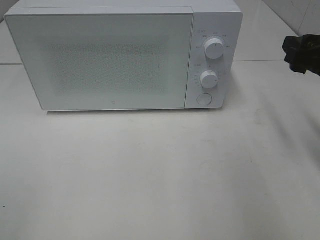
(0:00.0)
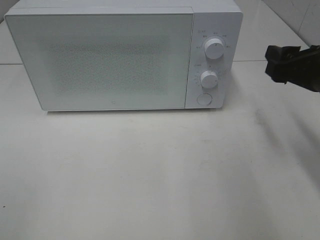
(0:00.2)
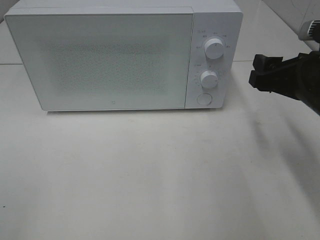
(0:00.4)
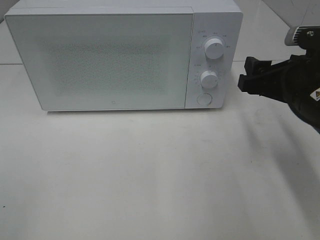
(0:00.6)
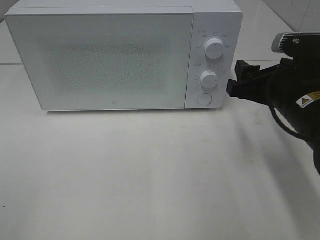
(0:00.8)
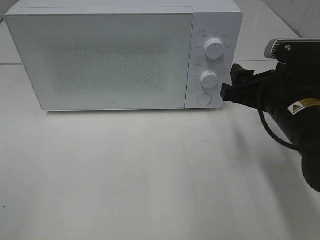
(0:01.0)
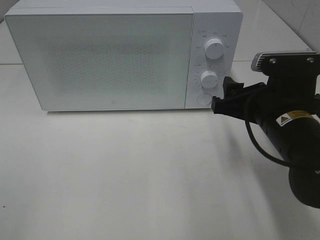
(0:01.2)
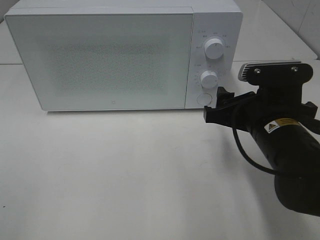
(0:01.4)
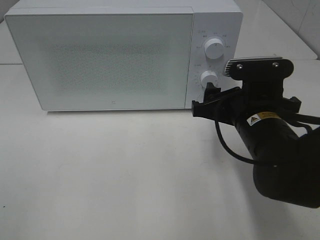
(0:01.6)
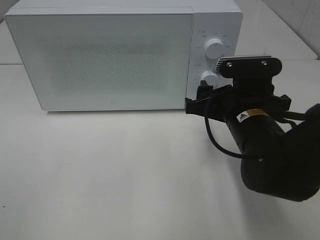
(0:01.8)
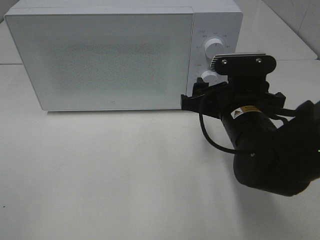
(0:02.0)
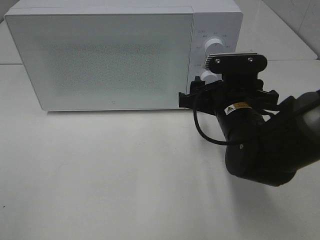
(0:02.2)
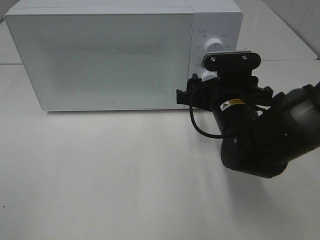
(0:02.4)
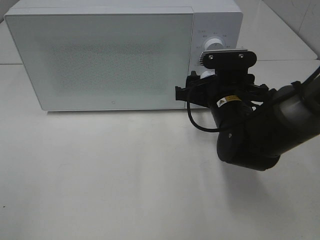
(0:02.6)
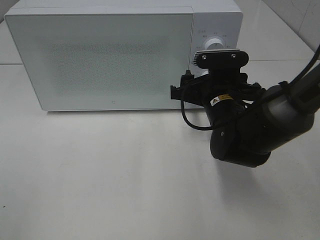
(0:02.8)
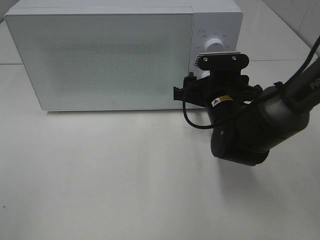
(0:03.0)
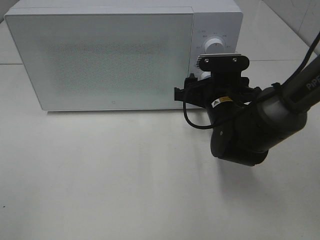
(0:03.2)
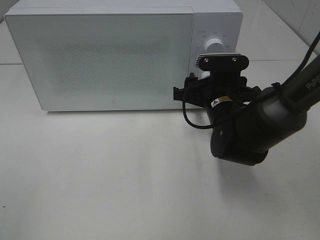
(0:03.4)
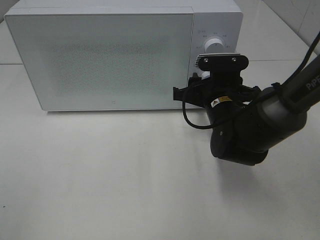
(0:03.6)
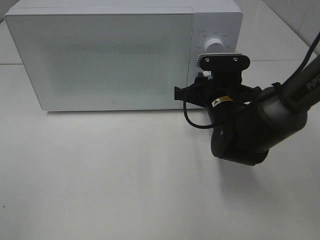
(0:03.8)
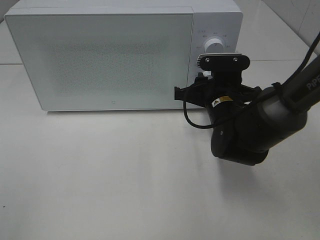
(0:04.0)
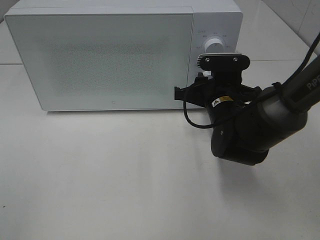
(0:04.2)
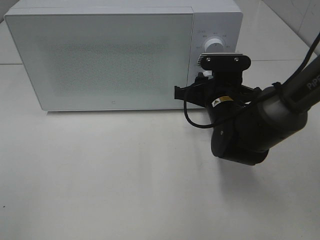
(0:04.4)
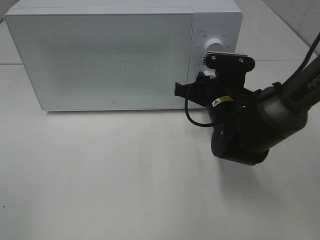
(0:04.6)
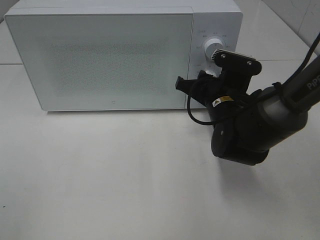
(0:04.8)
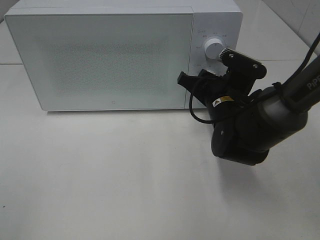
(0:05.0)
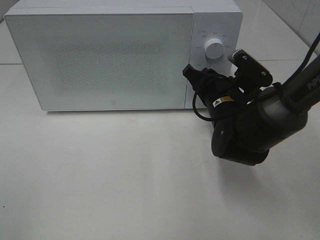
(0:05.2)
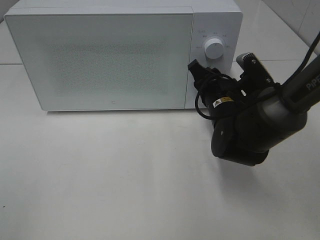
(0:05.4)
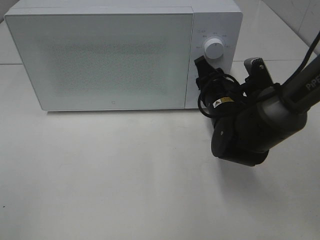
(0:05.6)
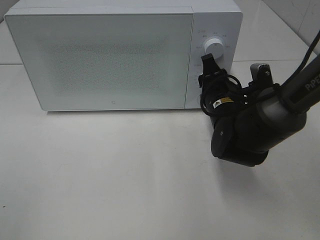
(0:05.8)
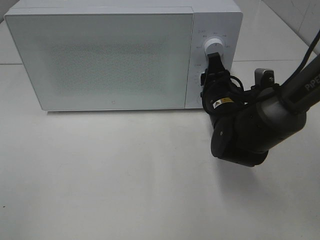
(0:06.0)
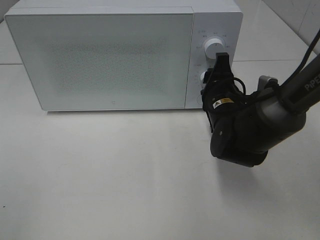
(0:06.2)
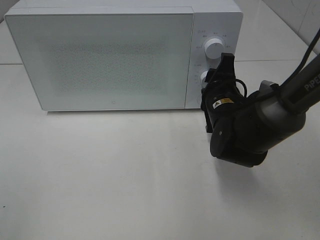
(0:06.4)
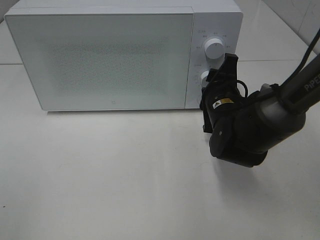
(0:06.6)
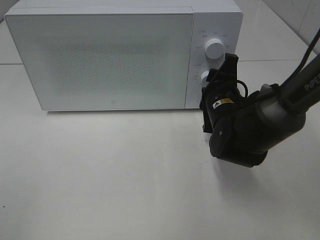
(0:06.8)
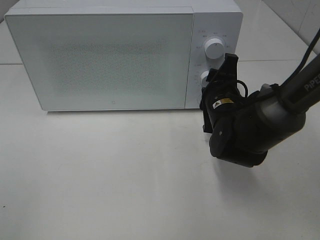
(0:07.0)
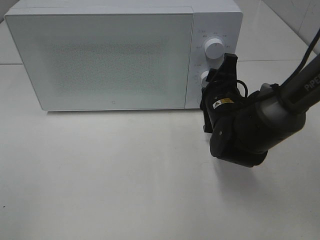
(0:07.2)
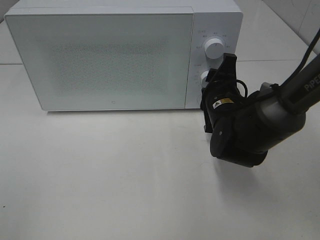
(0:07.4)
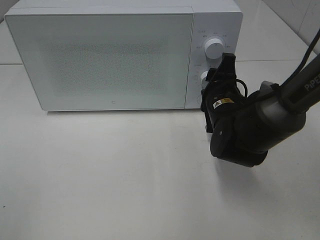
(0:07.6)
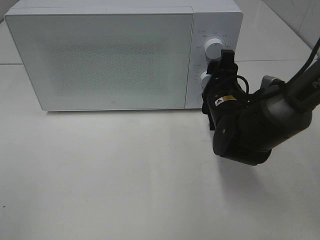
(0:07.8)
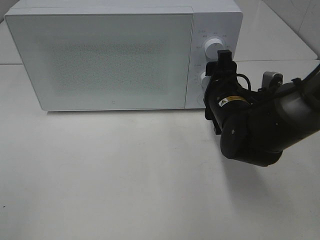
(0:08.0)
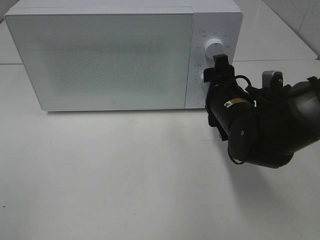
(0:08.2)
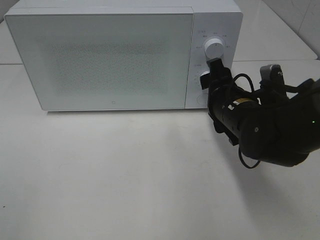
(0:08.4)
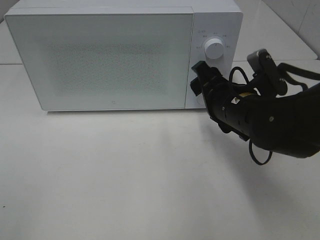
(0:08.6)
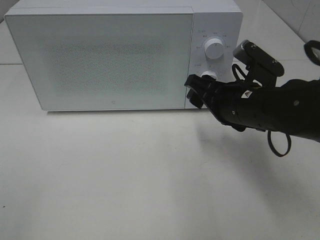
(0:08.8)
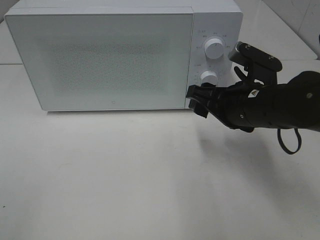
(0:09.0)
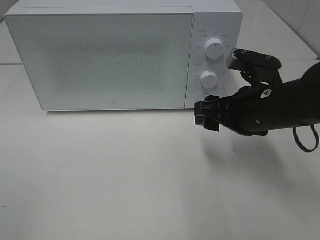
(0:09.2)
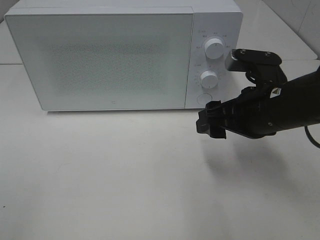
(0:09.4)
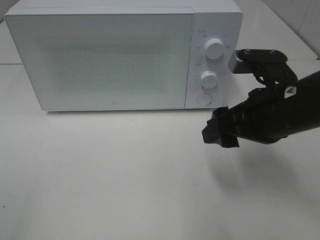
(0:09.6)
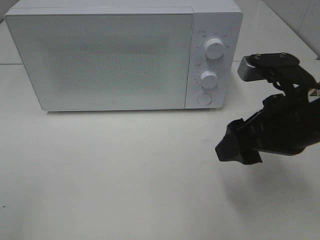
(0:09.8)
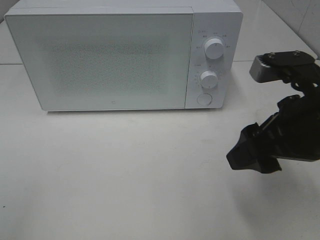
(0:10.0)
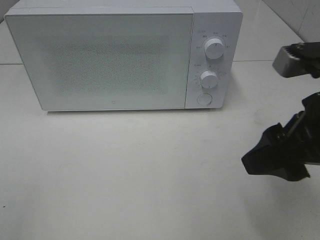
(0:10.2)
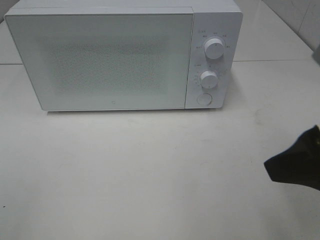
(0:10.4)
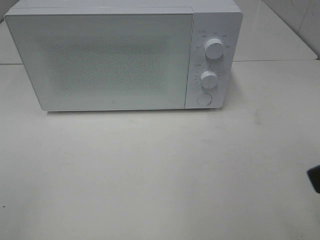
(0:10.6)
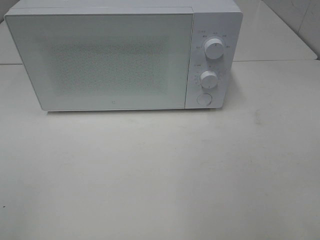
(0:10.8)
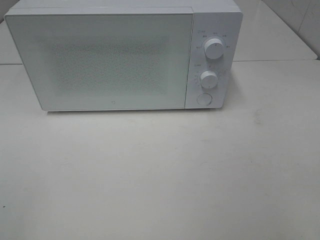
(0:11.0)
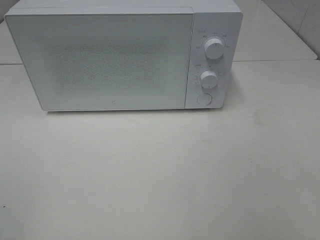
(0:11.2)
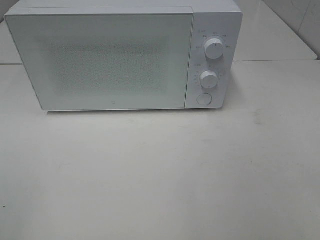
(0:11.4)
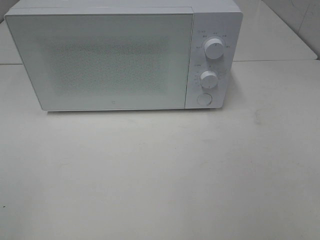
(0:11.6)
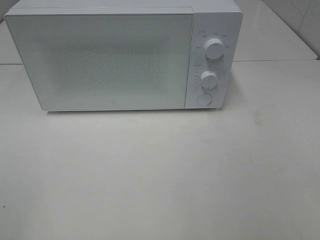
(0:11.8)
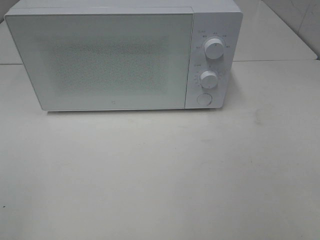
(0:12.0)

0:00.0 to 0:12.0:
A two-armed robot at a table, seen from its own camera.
Task of the whole recording: Heat the burger.
Step, 0:00.0 to 0:08.0: Right hand: twist timer button.
0:00.0 to 0:01.6: The right gripper is displaced to the left and downward by roughly 15 cm.
0:01.6 to 0:03.0: The right gripper moves forward, roughly 10 cm.
0:03.0 to 0:04.4: The right gripper closes.
0:07.6 to 0:09.0: The right gripper moves upward and backward, roughly 10 cm.
0:09.0 to 0:10.4: The right gripper travels backward, upward and to the right by approximately 20 cm.
0:10.4 to 0:12.0: The right gripper goes about 15 cm backward and to the right.

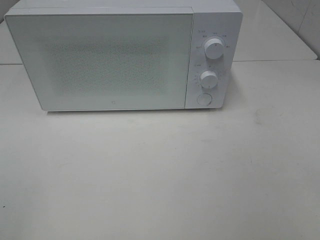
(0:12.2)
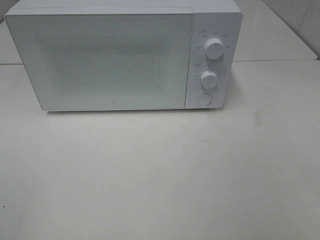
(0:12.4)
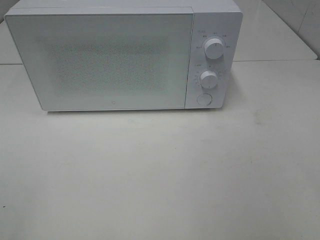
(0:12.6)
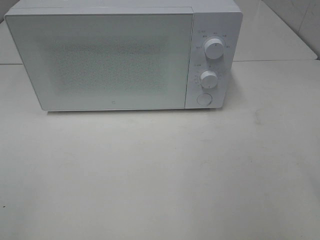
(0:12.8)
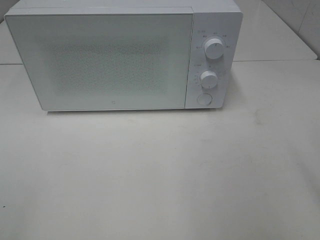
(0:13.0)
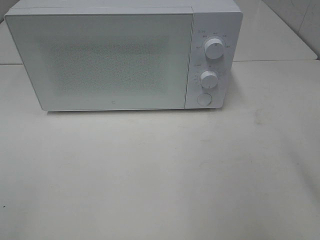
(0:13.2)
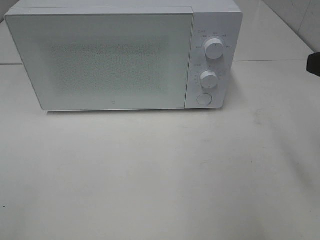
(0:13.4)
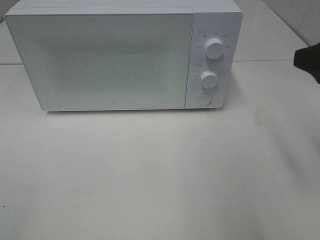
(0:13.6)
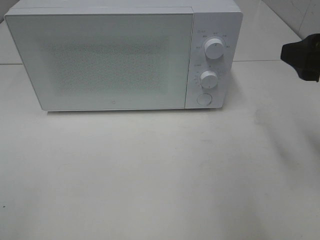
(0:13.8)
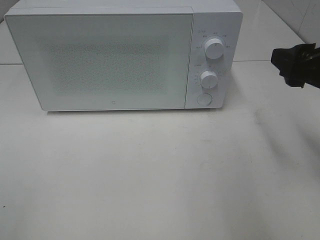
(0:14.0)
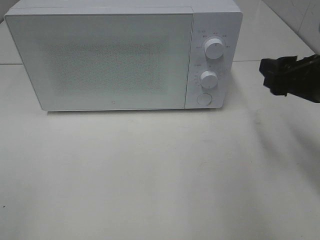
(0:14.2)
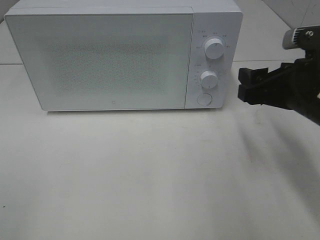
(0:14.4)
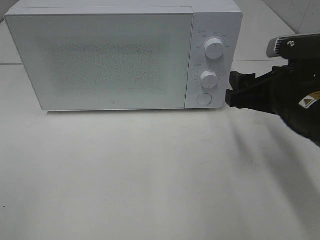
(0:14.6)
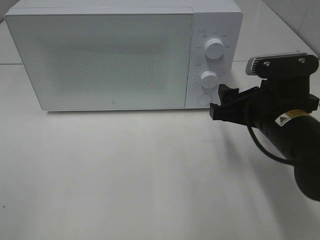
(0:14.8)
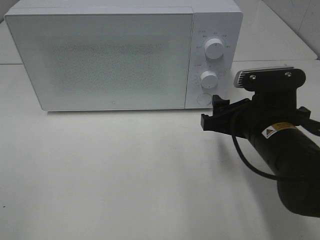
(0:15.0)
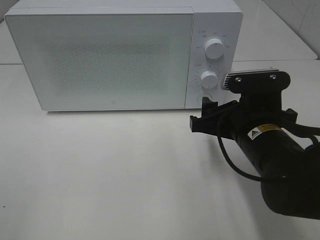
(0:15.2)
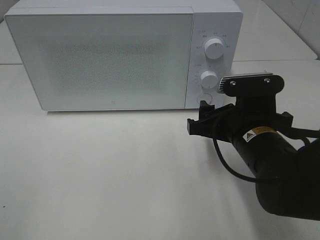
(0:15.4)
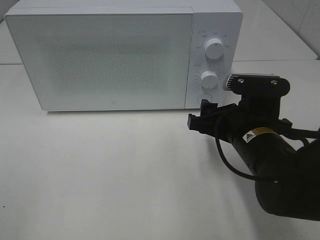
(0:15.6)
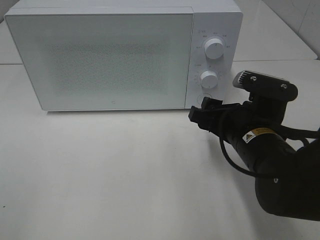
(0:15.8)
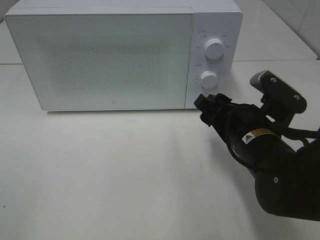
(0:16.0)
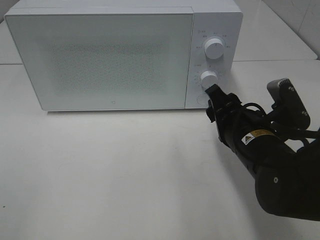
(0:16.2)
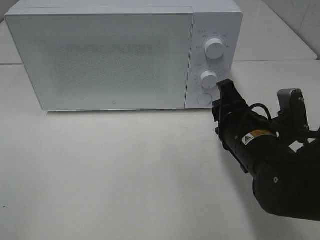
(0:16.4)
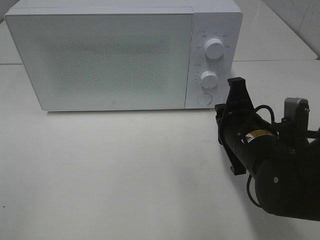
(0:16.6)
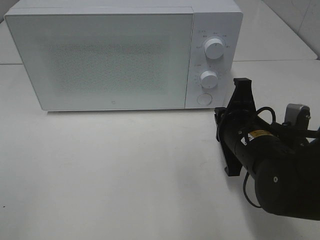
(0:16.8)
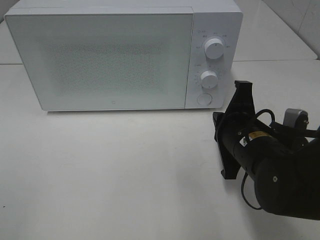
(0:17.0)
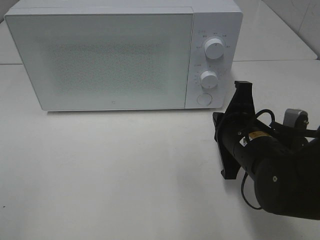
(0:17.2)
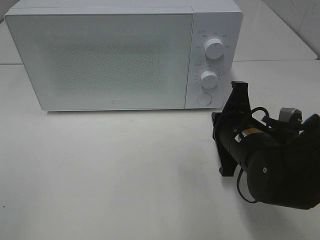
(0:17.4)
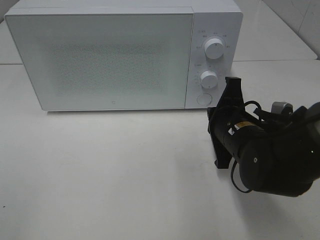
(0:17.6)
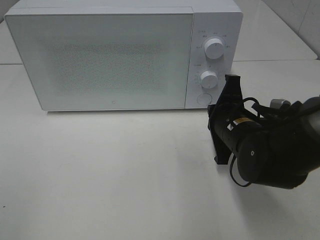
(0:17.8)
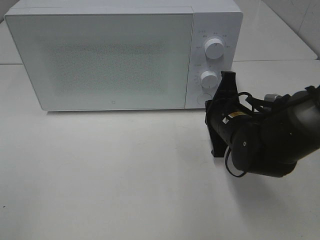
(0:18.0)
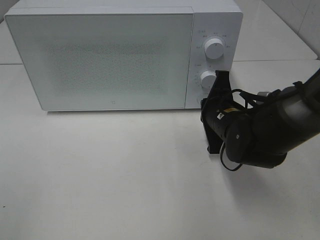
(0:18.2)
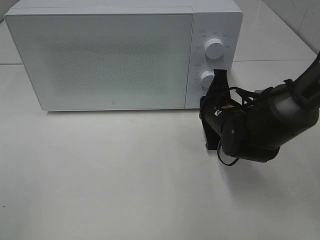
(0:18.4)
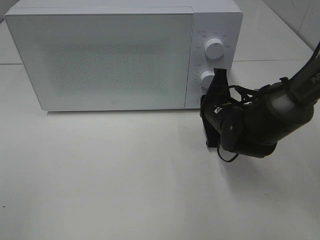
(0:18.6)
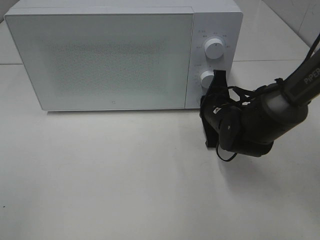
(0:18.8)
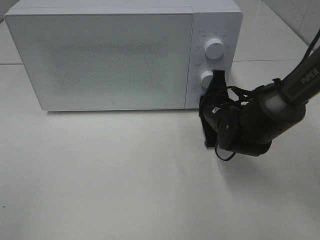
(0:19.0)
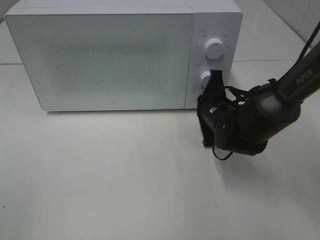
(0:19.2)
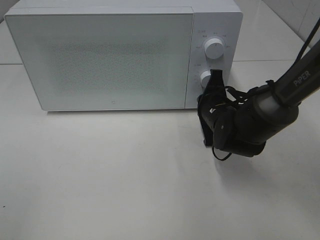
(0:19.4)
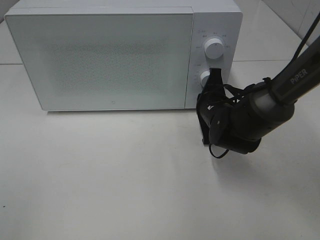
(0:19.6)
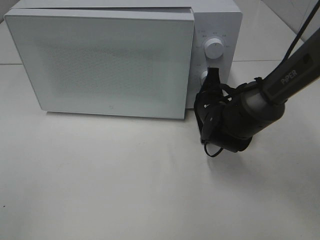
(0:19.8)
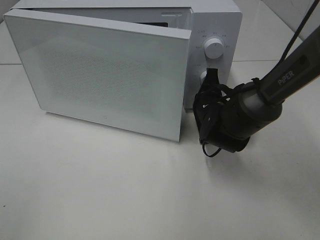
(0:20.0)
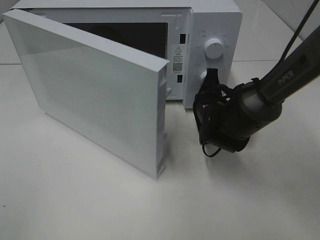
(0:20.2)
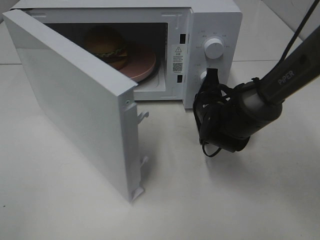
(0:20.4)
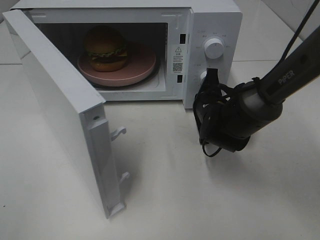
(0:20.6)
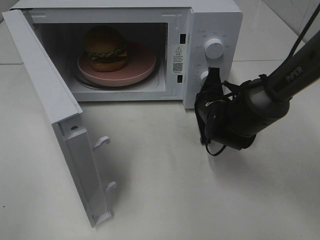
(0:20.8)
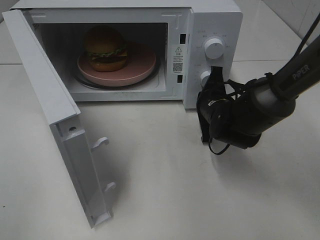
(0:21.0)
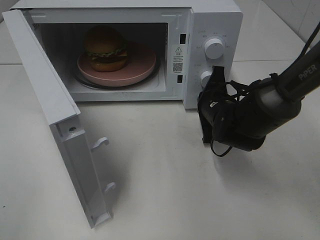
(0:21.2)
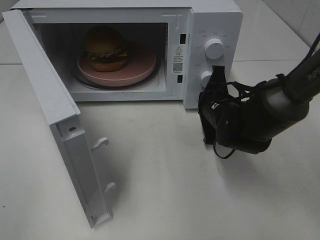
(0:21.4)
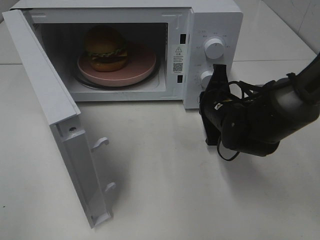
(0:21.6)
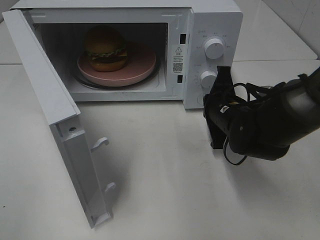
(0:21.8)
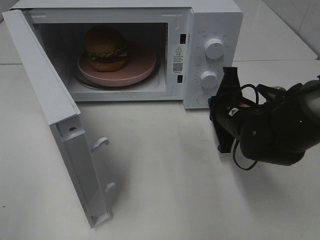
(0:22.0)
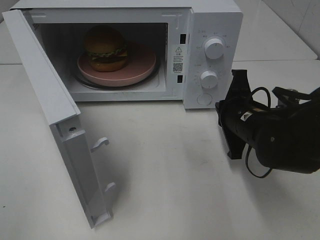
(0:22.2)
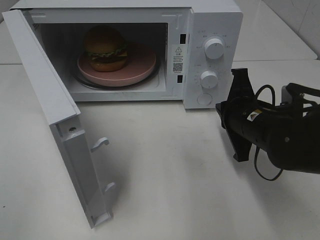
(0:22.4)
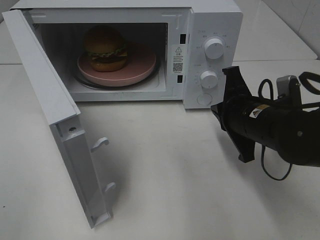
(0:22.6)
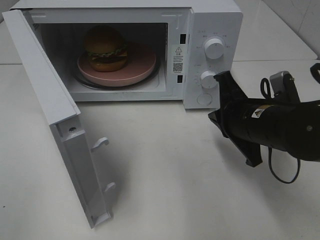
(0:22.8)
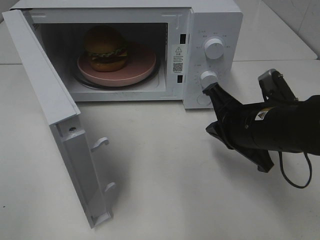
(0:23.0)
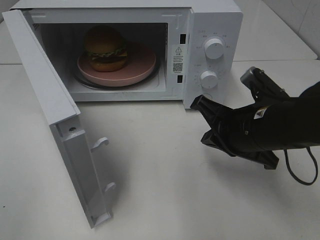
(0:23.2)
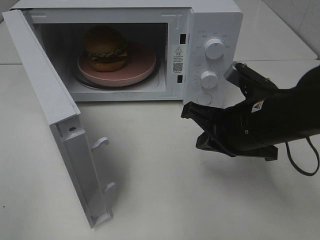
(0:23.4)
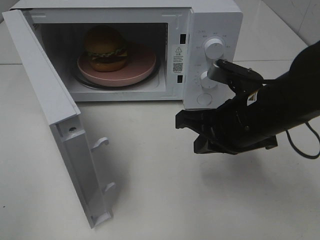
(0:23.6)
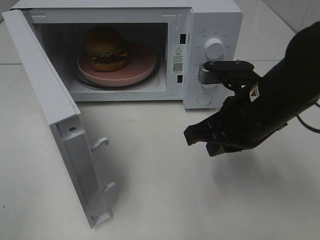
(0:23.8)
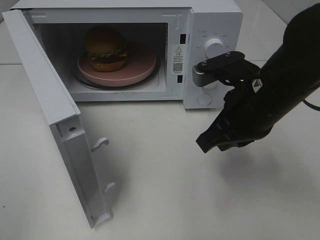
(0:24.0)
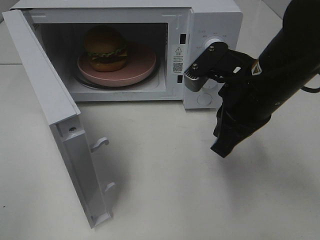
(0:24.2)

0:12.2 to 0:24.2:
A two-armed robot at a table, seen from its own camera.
Task of the whole recording: Heat the burger.
Step, 0:12.2 to 0:22.0: Right hand: press the switch.
0:12.2 to 0:13.8: The right gripper heads forward, covering approximately 20 cm.
0:13.8 to 0:15.2: The right gripper is displaced downward and to the left by some 15 cm.
0:15.2 to 0:16.6: The right gripper closes its fingers.
0:16.6 to 0:18.2: The right gripper travels forward by approximately 10 cm.
0:18.2 to 0:19.8: The right gripper is displaced forward by approximately 5 cm.
0:21.2 to 0:22.6: The right gripper travels backward and upward by approximately 10 cm.
0:22.6 to 0:24.2: The right gripper is displaced upward by roughly 10 cm.
